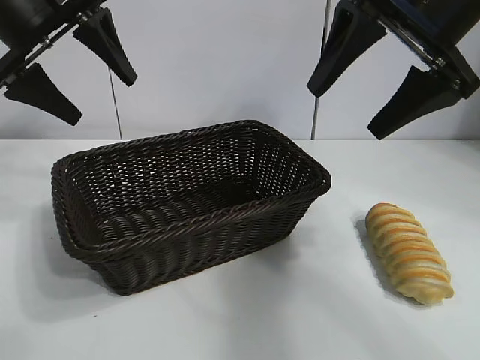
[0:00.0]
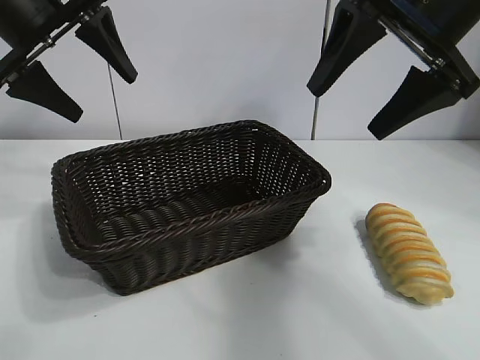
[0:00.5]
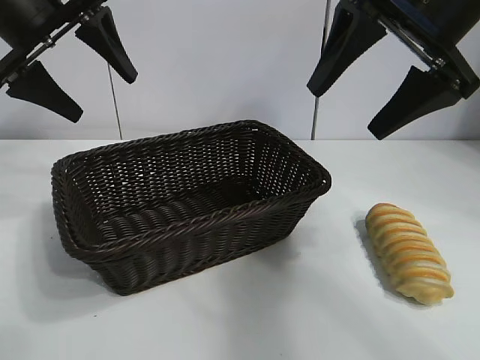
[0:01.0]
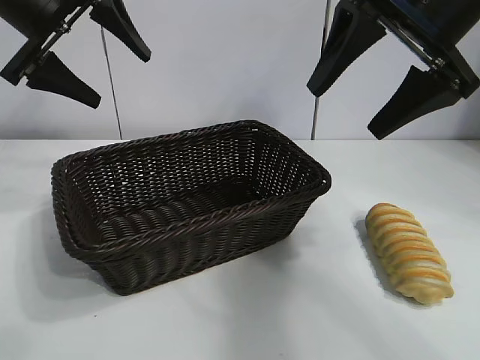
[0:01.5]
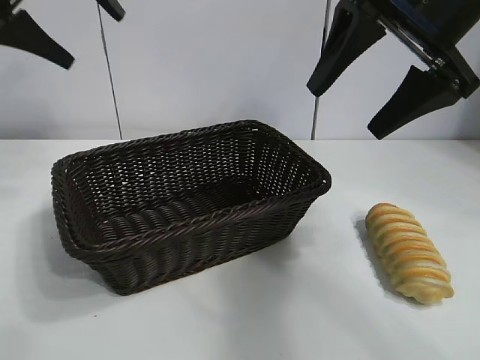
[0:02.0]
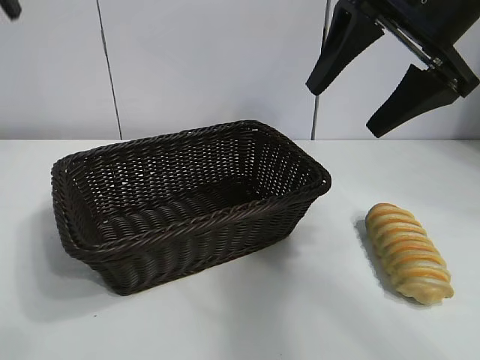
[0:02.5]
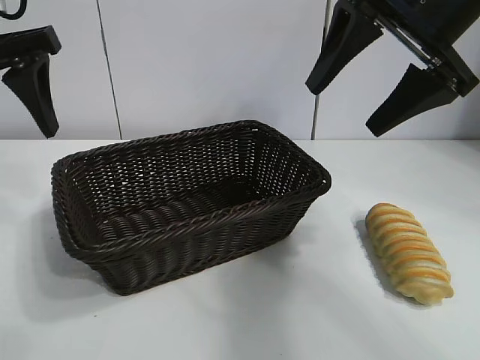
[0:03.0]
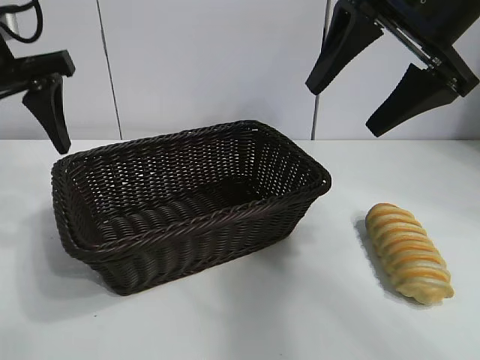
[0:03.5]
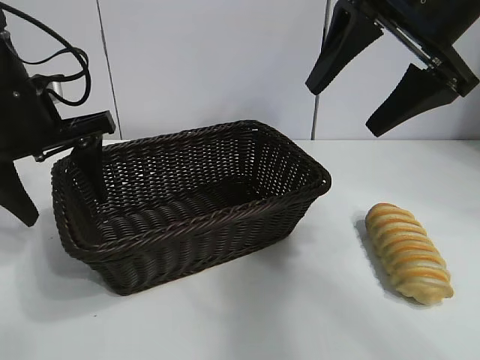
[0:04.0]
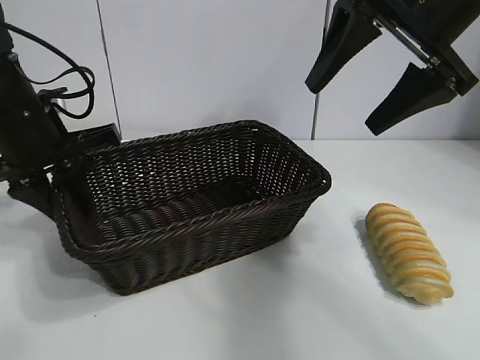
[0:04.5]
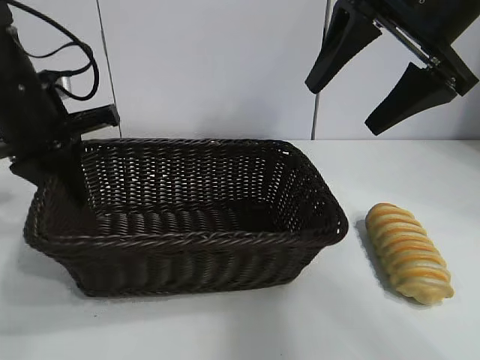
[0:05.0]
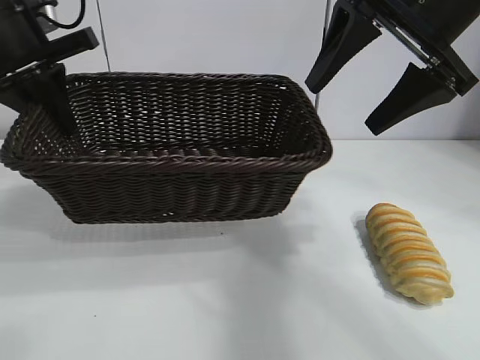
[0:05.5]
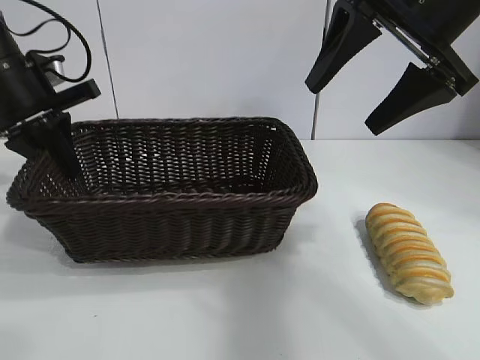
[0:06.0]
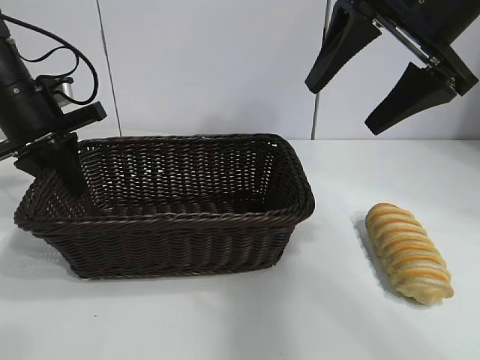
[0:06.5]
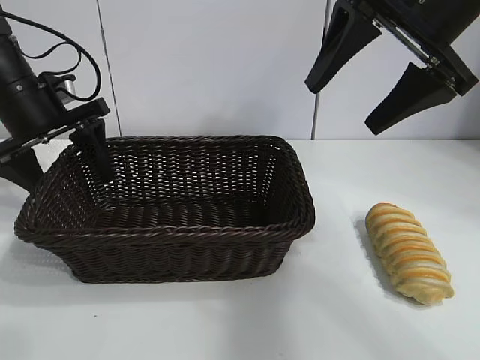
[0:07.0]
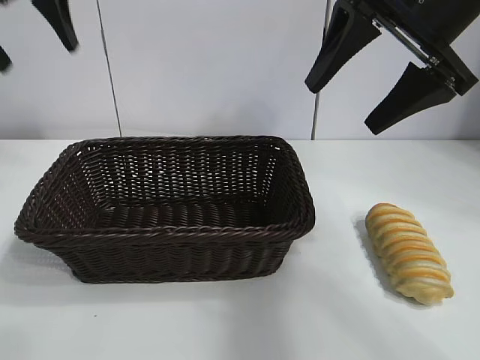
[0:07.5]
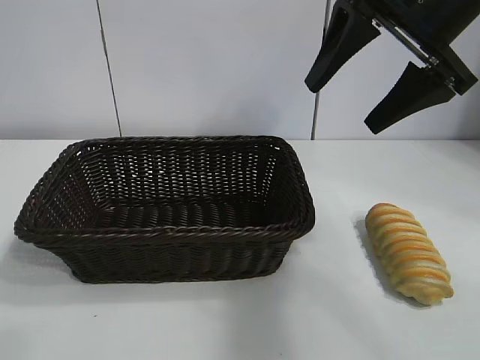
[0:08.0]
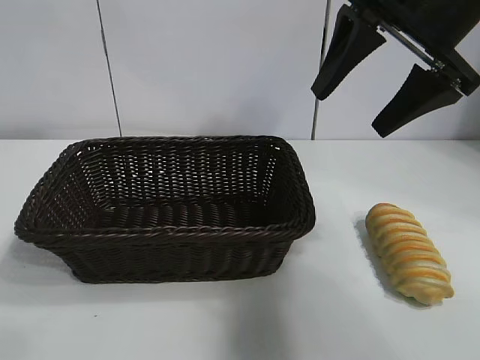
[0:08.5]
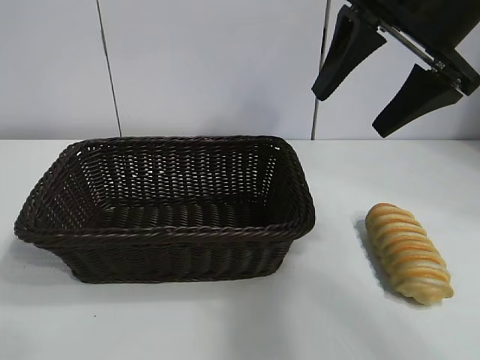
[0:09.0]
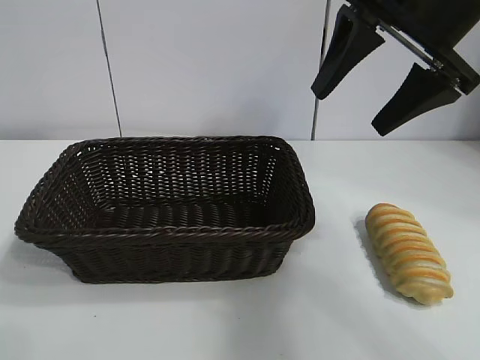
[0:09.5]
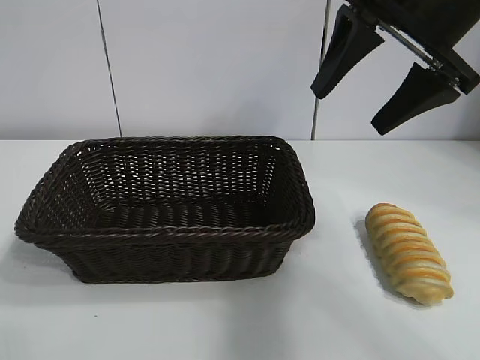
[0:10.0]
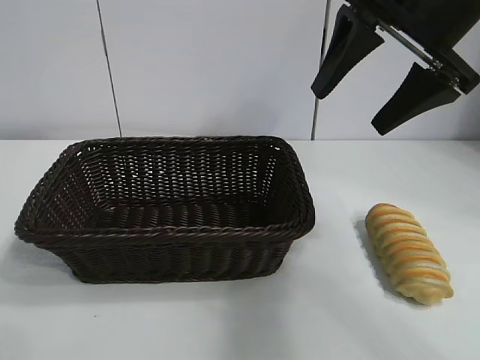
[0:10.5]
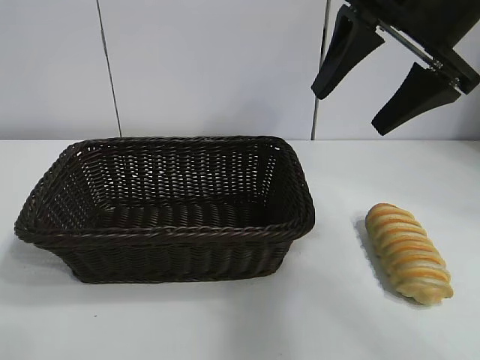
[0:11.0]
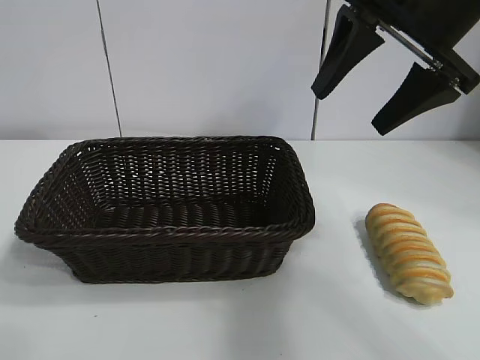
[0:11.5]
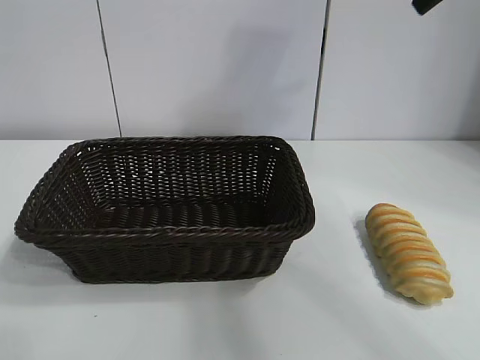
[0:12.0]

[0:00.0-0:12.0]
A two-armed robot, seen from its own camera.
Task of the whole recording: pick up the long bread and put it into the basket.
Step, 0:02.5 to 0:04.5: Grasp the basket with the left gripper.
Step, 0:05.0 to 0:07.0: Place the basket in the center of the table with the left gripper.

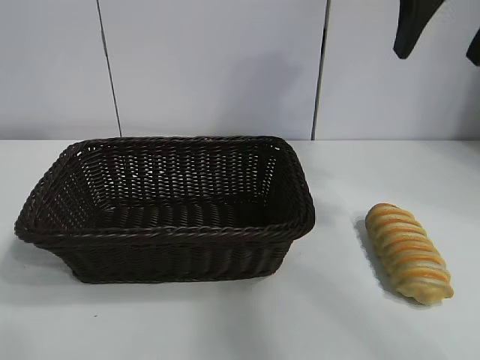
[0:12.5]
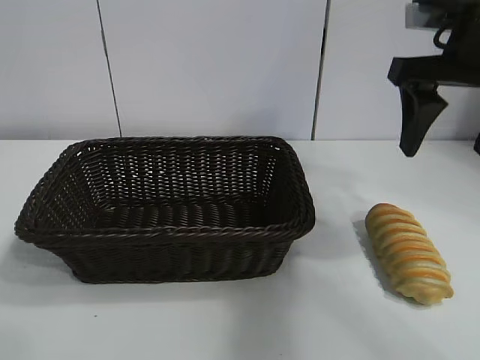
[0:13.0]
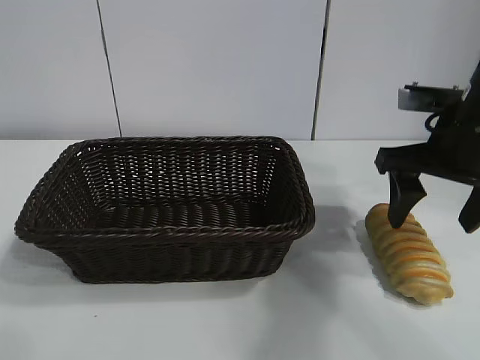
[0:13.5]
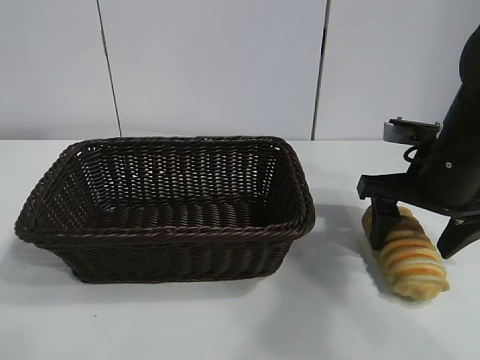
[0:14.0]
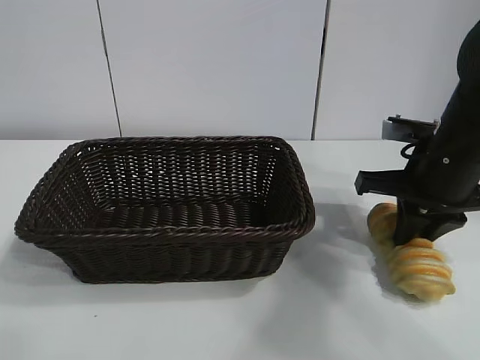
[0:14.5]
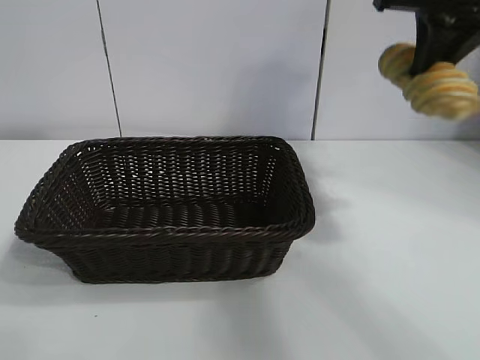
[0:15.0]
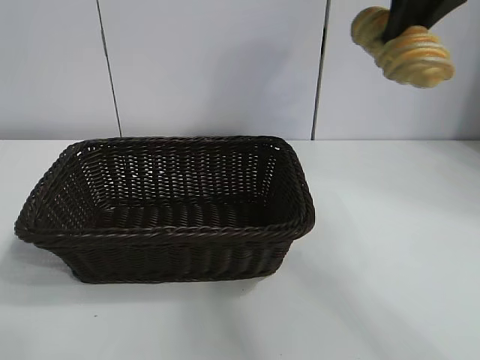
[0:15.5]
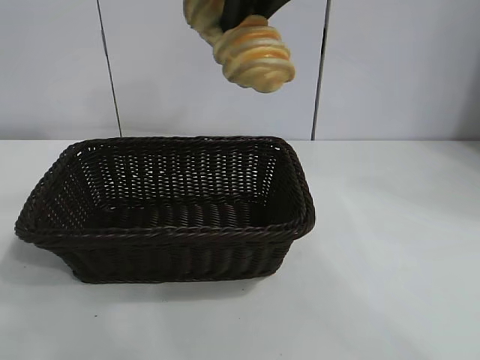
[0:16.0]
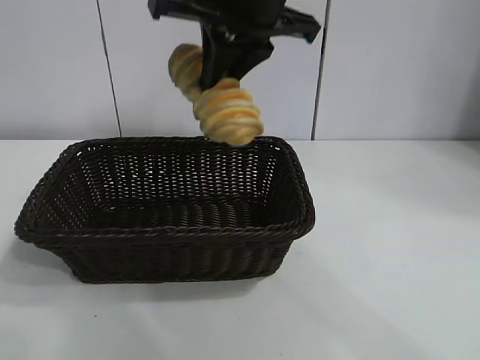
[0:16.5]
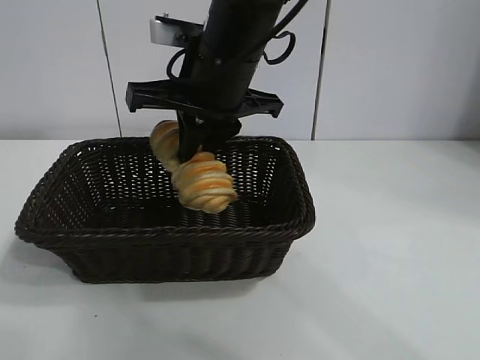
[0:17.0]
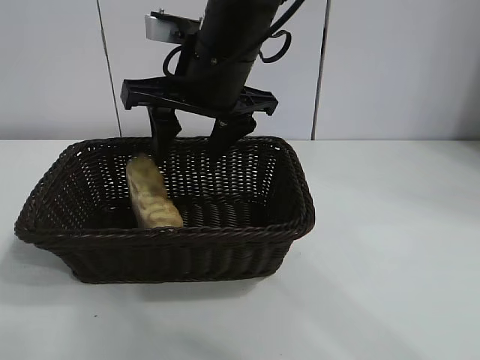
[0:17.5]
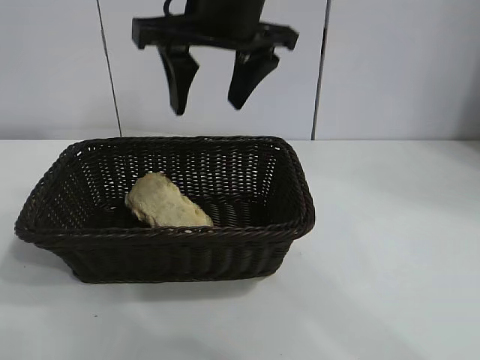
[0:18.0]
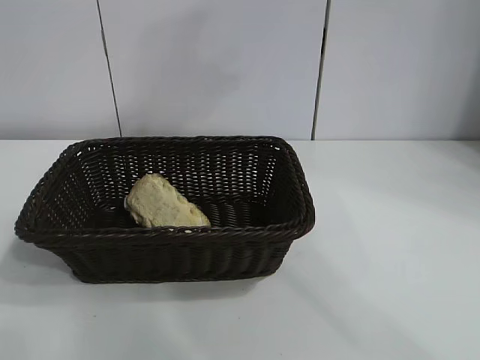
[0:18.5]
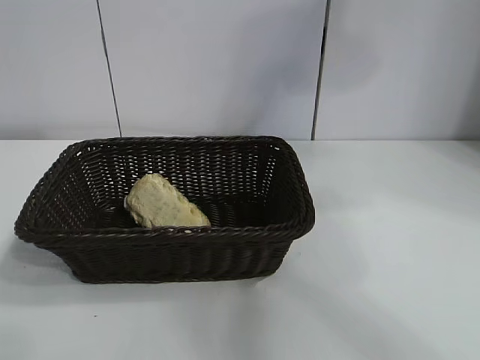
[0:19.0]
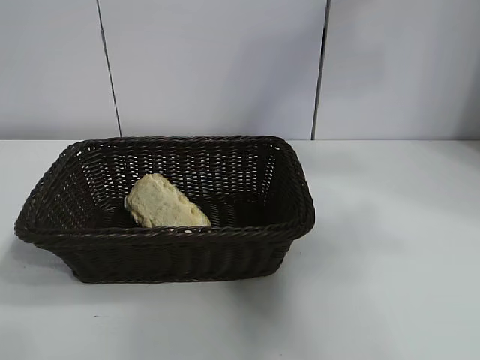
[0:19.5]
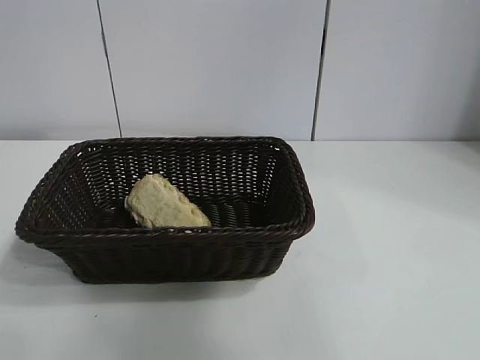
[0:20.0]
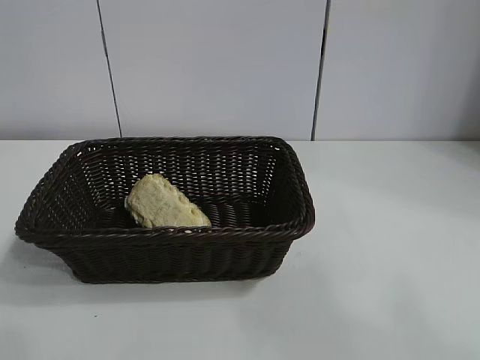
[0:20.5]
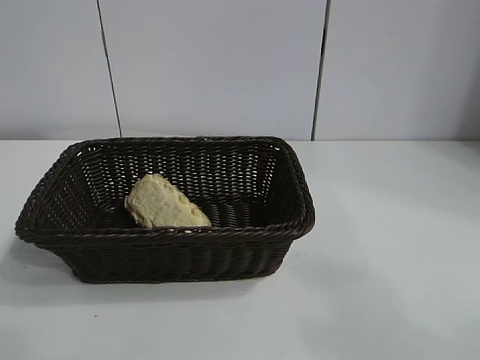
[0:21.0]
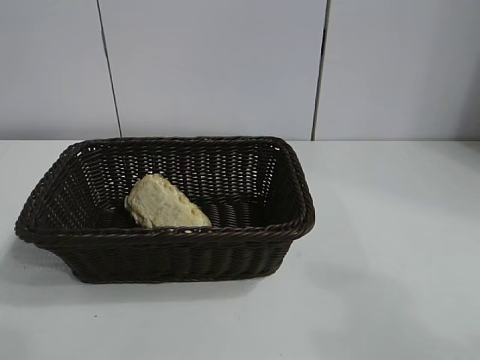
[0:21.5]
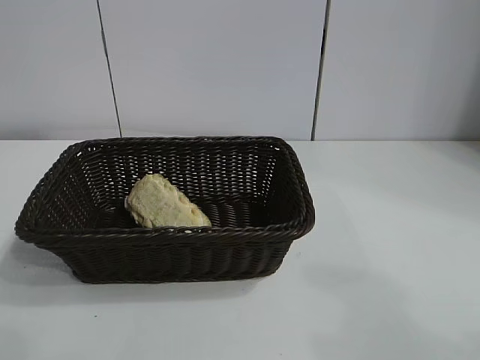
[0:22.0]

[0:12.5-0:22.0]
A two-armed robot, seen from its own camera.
Task of the whole recording: pick up the long bread and put it into the basket.
Step, 0:14.5 to 0:17.5: Place the long bread in the basket with right gripper.
